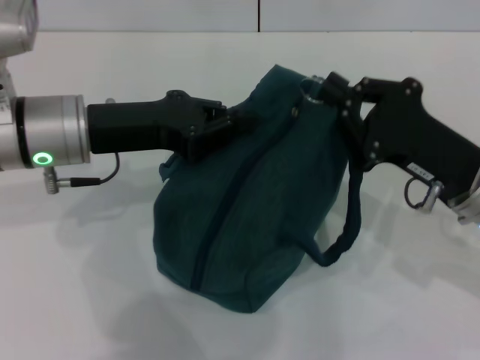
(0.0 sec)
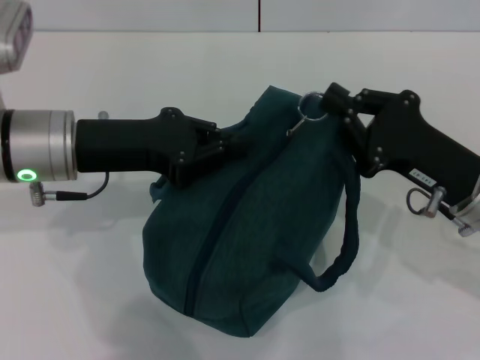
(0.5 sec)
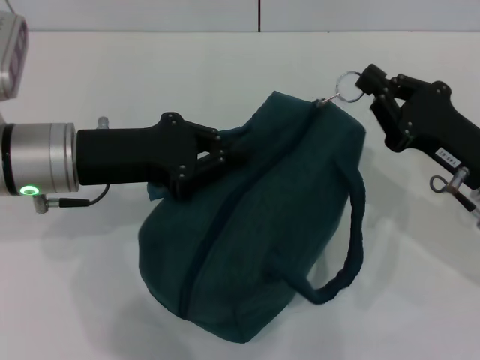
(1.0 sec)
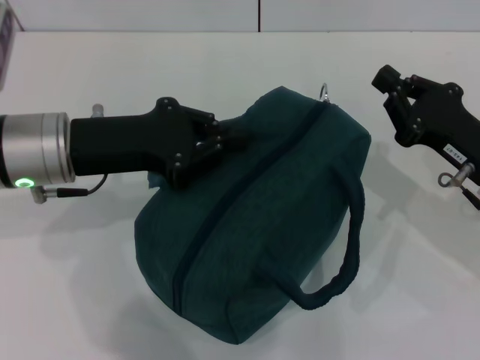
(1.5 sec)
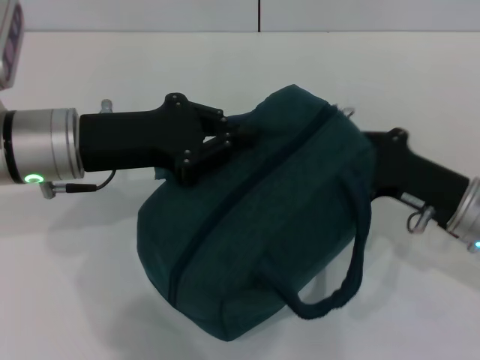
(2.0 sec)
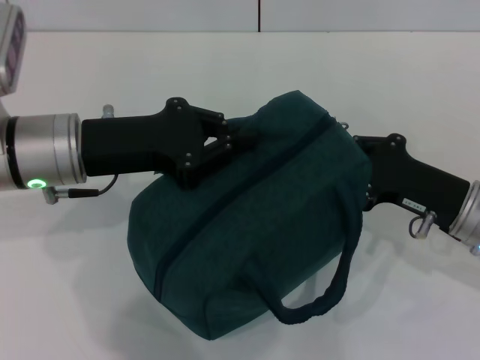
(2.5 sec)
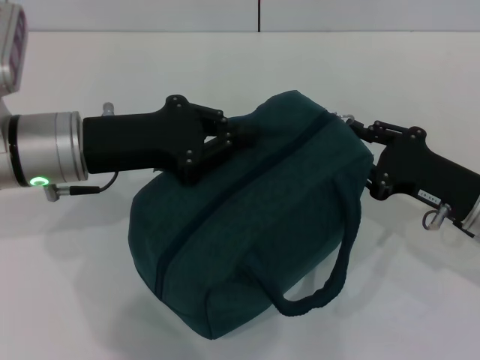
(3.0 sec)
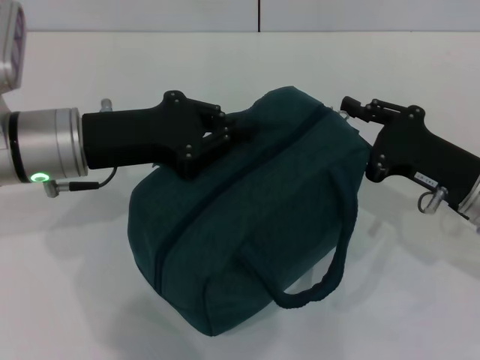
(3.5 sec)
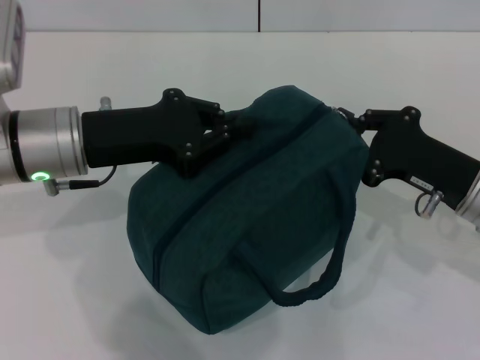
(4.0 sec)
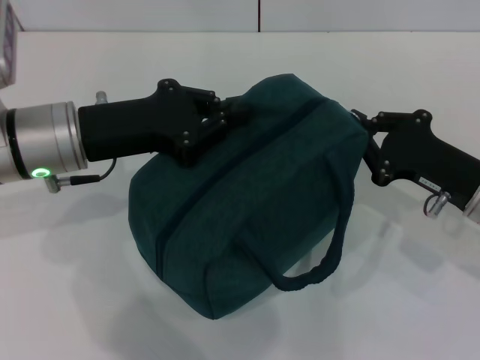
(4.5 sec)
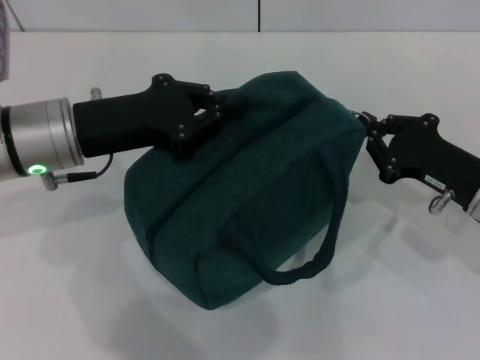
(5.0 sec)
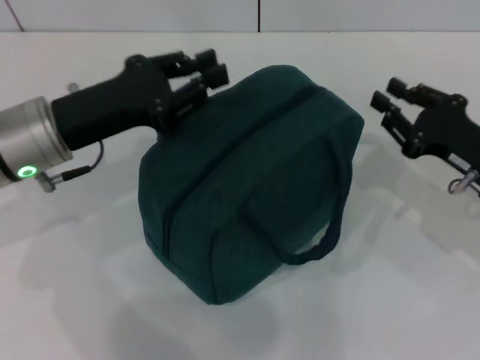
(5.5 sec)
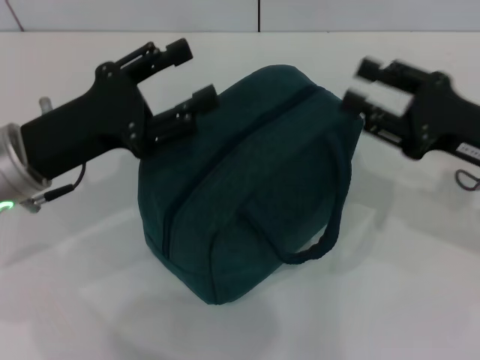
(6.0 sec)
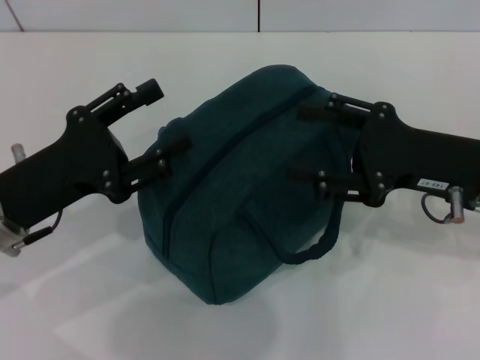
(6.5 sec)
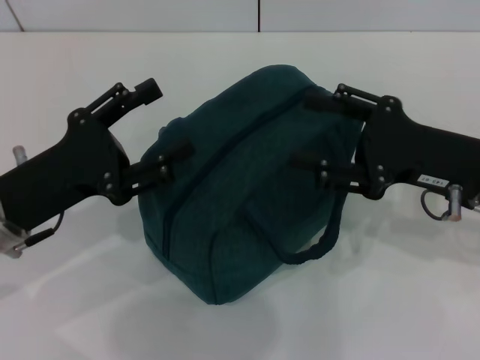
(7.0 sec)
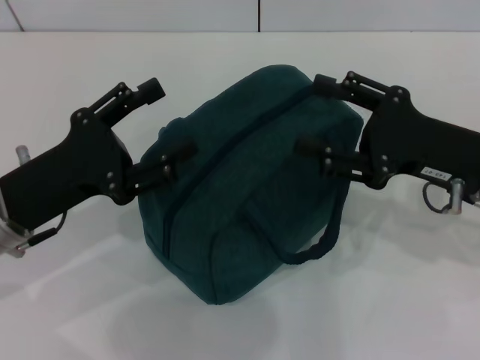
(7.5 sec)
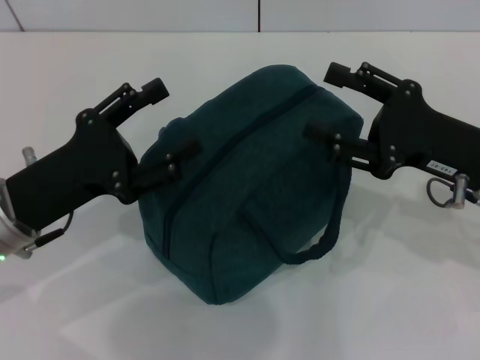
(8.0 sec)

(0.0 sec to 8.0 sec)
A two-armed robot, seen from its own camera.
Step, 0.0 sec - 5.0 sec: Hold the lunch bag with your left hand.
2.0 sec - 4.0 sec: The grippers make only small movements.
4.0 sec - 6.0 sec: The left gripper opens up. The right gripper heads upward, covering roughly 5 cm, and opens up.
6.0 sec - 8.0 sec: The left gripper opens up.

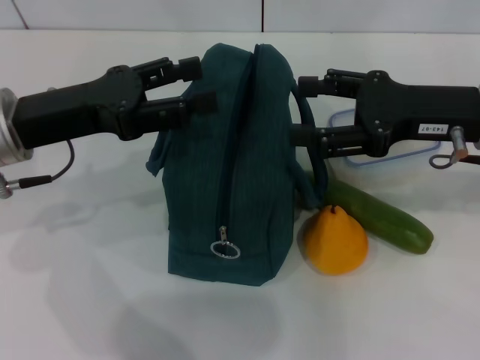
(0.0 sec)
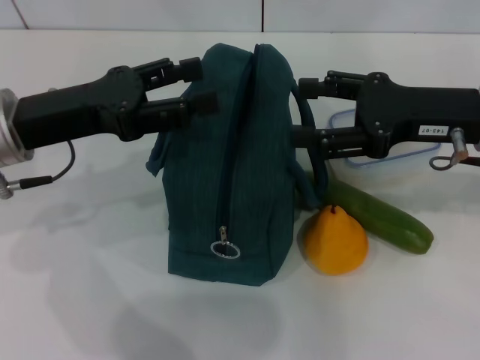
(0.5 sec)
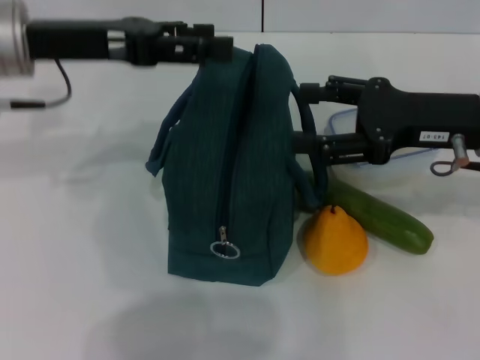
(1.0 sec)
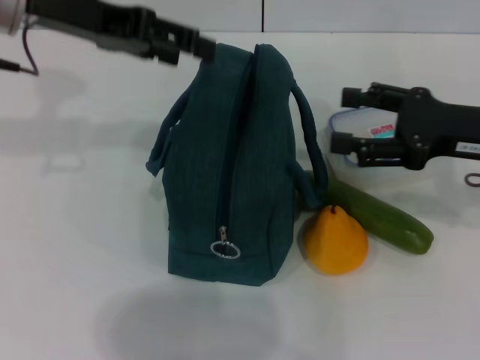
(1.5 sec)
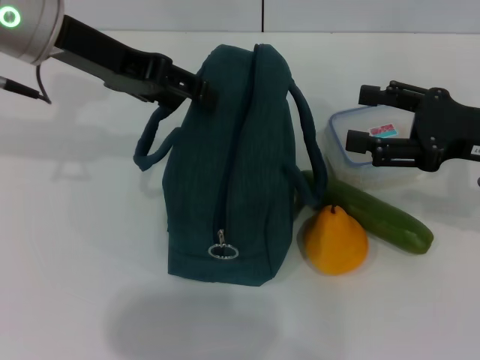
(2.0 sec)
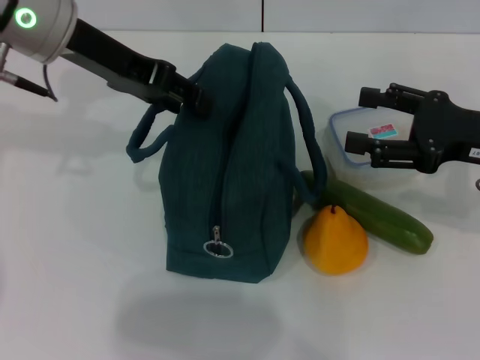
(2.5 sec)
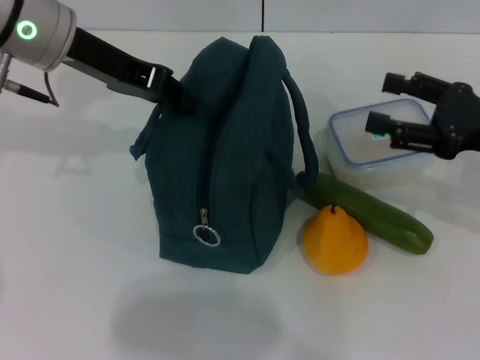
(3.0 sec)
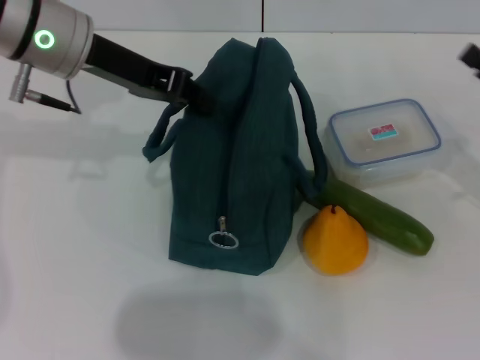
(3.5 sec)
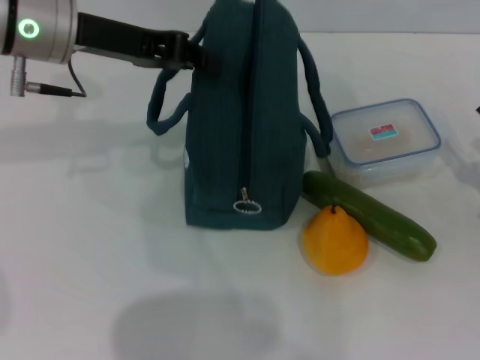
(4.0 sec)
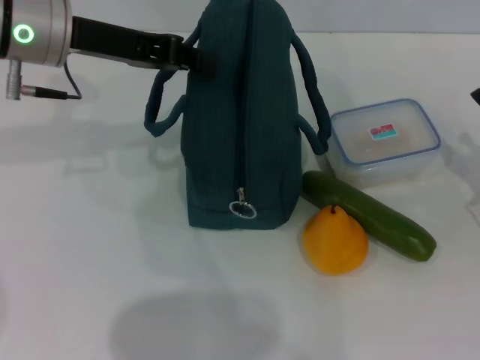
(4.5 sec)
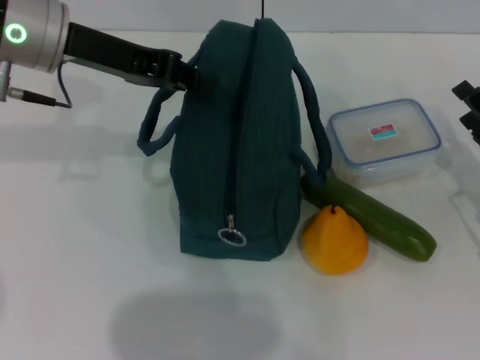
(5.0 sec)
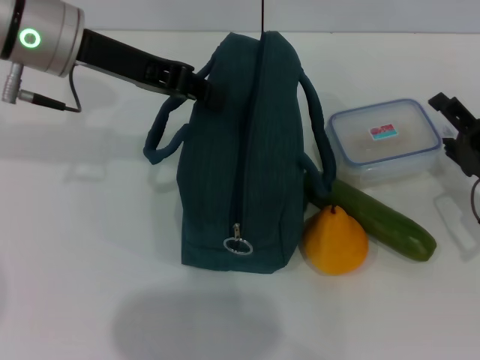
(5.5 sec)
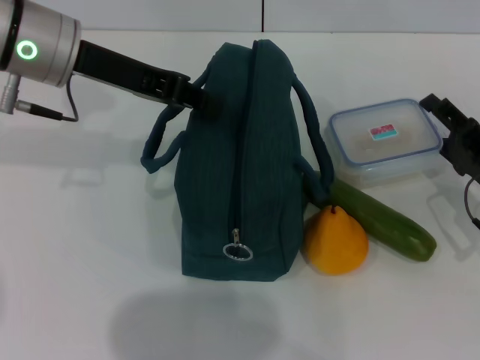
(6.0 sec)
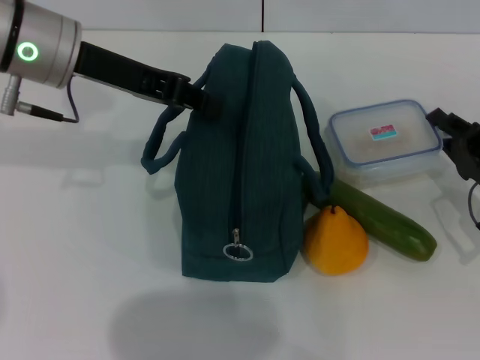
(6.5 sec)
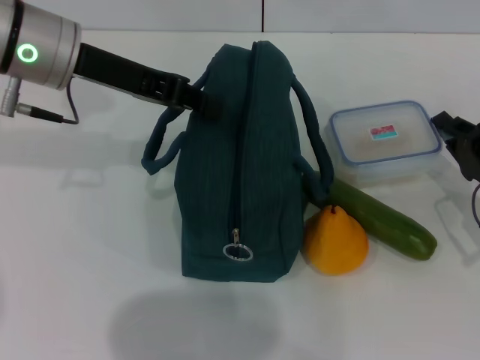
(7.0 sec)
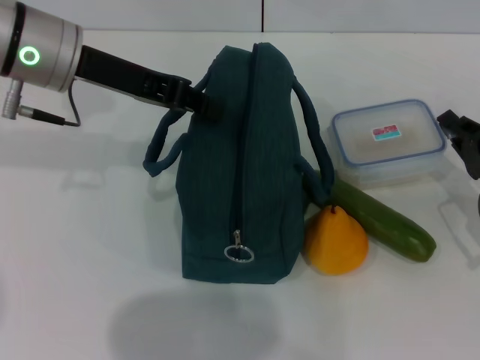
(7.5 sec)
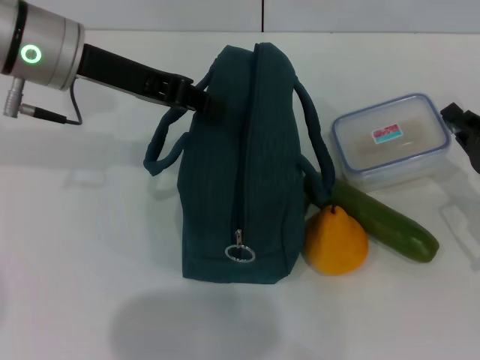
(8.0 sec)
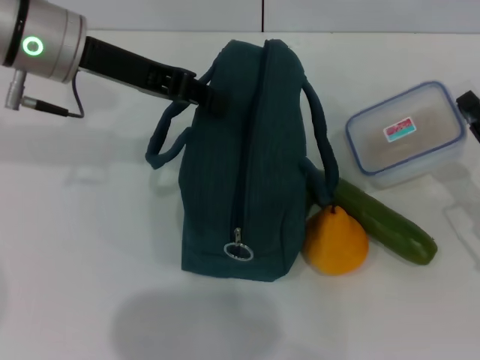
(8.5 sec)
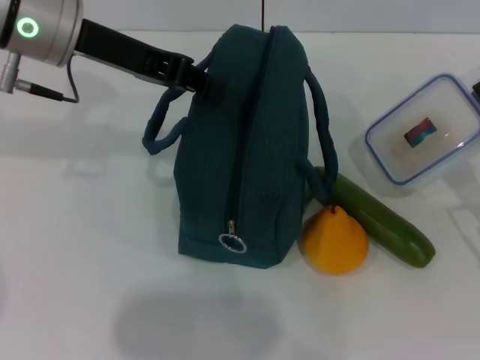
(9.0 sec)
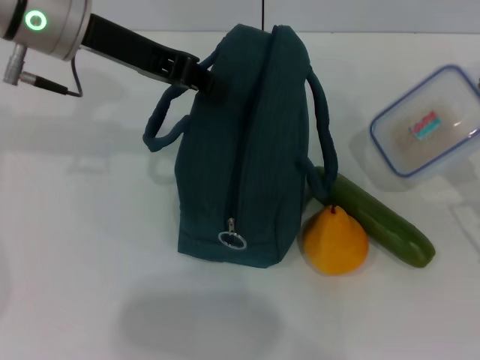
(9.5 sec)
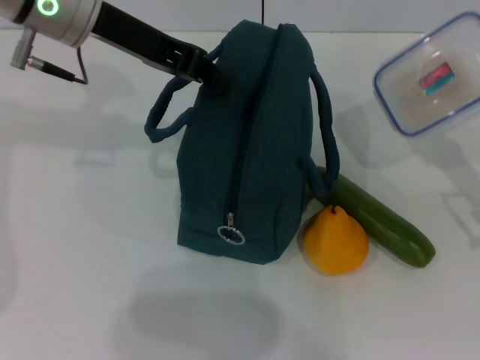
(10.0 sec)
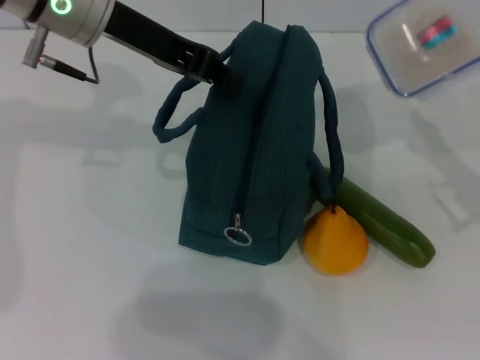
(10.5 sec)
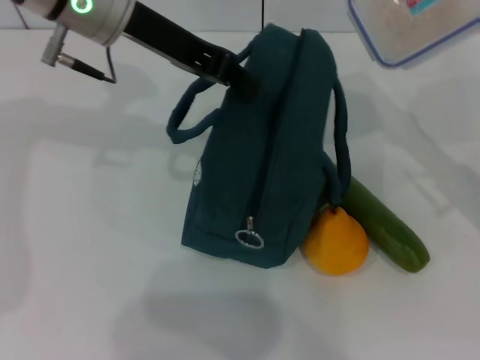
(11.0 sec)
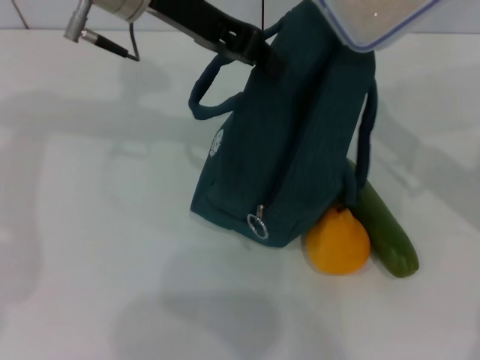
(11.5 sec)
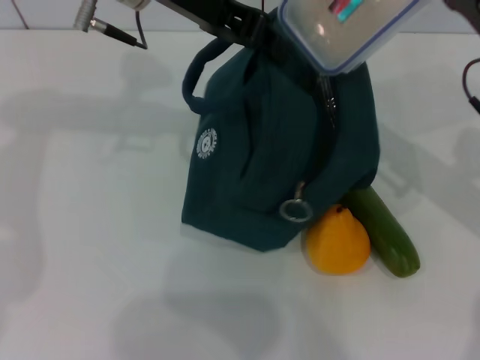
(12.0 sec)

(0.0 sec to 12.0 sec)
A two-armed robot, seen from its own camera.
Step, 0.0 sec - 3.0 sec: Hold the lunch bag with your left hand.
Step, 3.5 sec - 7.0 sec: Pick up the lunch box with your right hand.
0.0 sec - 2.0 sec: The left gripper shifts approximately 10 cm upward and forward. The right gripper goes about 5 cm to the right.
2.0 sec - 4.0 sec: The left gripper closes its fingers, while the right gripper travels downward and to the right by about 15 cm.
4.0 sec - 6.0 sec: The right gripper heads to the left, covering roughly 5 cm.
6.0 sec - 8.0 sec: The right gripper closes up.
8.0 sec - 10.0 sec: The right gripper travels upward by some 5 cm.
10.0 sec - 12.0 sec: The left gripper travels to the right by some 5 cm. The right gripper heads to the left, upward and forward, covering about 10 cm.

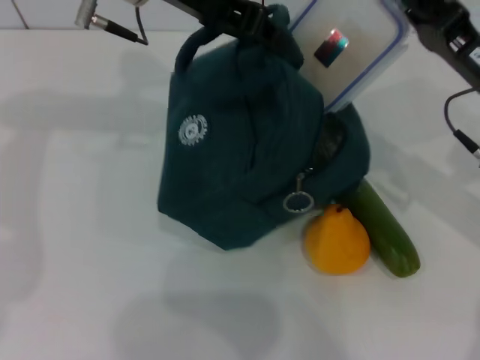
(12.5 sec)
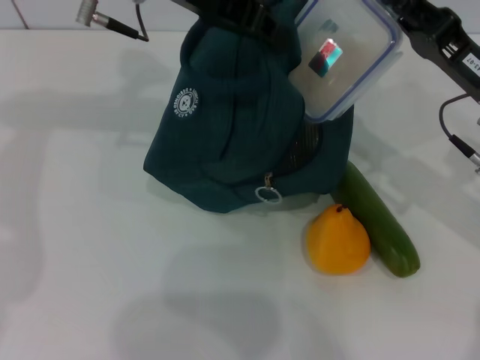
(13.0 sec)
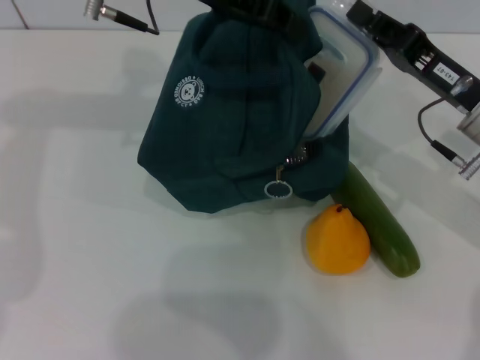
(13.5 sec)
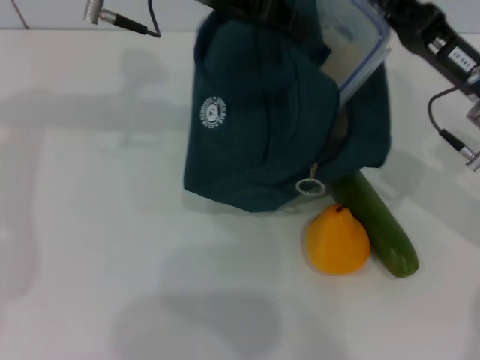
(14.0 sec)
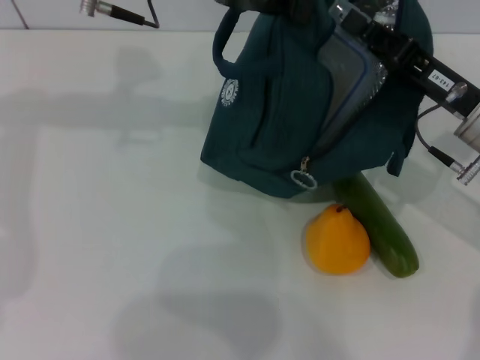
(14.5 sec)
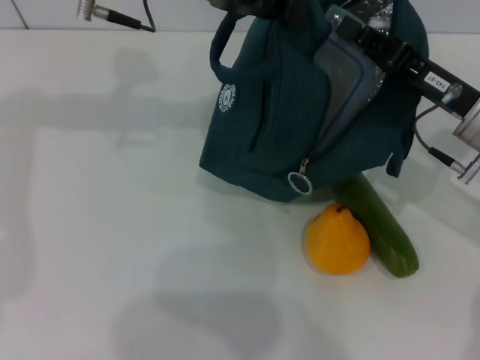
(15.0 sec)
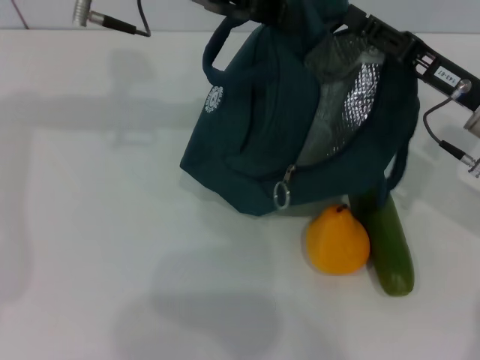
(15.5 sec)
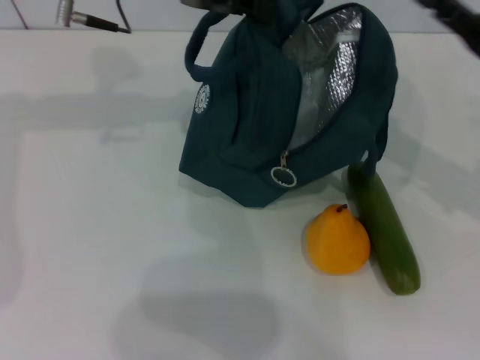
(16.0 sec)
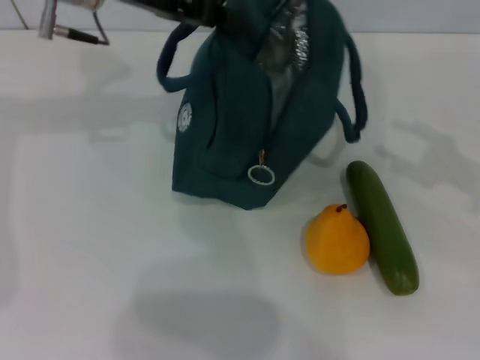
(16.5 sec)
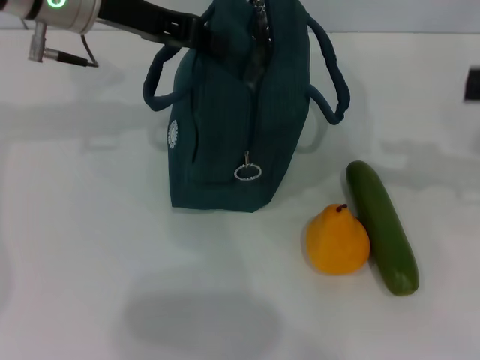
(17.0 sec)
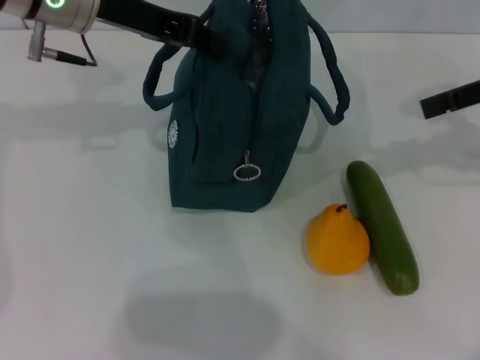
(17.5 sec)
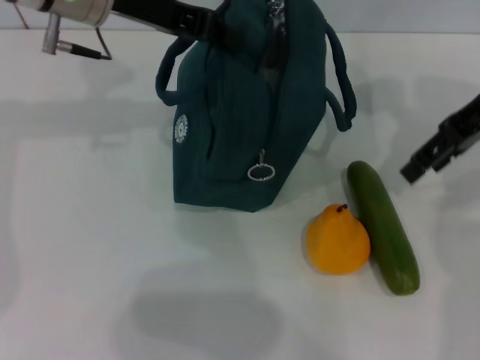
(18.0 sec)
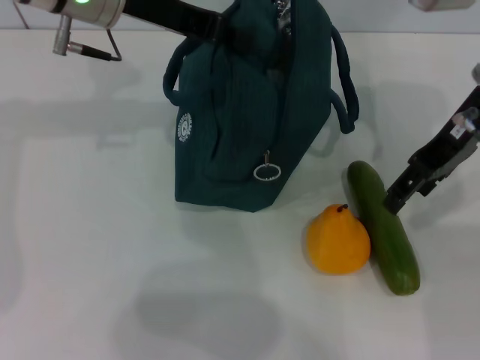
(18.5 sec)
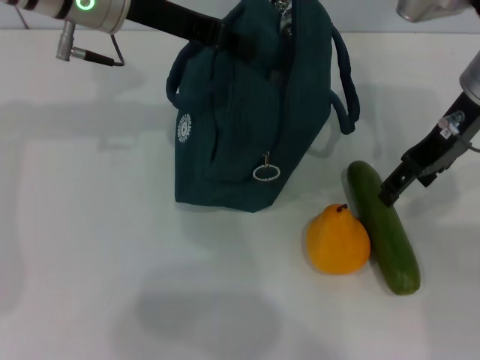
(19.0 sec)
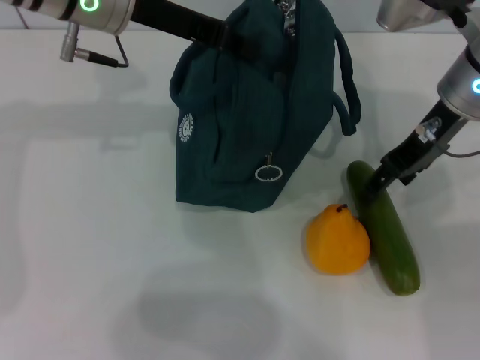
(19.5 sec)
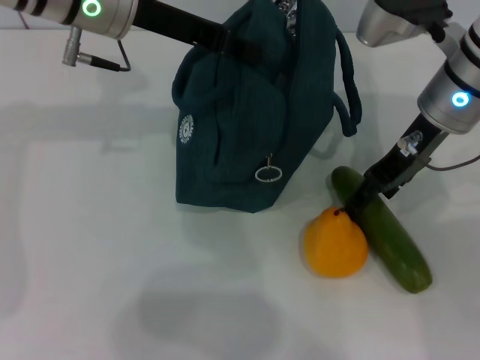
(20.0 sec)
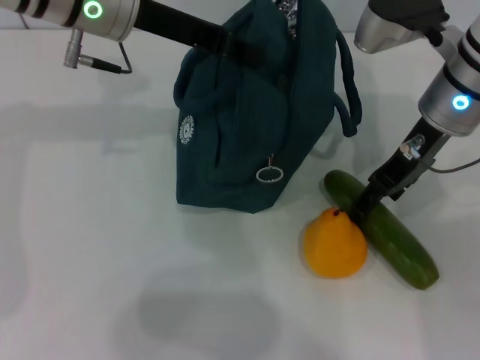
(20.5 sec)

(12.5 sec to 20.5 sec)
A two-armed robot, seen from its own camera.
Step, 12.5 sec - 15.0 sec: Place the lunch box into the lunch bag with your right hand.
14.5 sec - 16.5 sec: The right gripper goes some 15 cm to the right and upward, and opens its fingers. The left gripper changes place by some 5 cm.
16.5 sec - 18.5 sec: The right gripper moves to the left and forward, about 20 cm.
18.5 sec - 20.5 sec: The right gripper shifts by some 5 cm.
